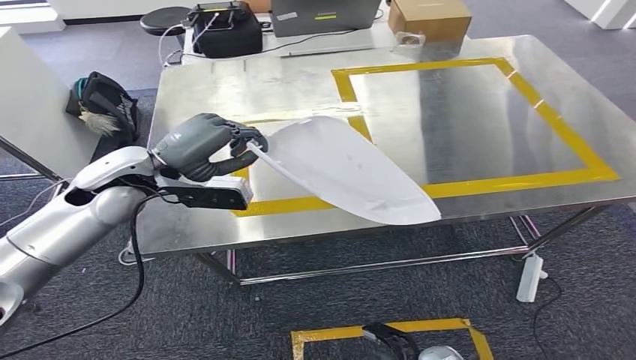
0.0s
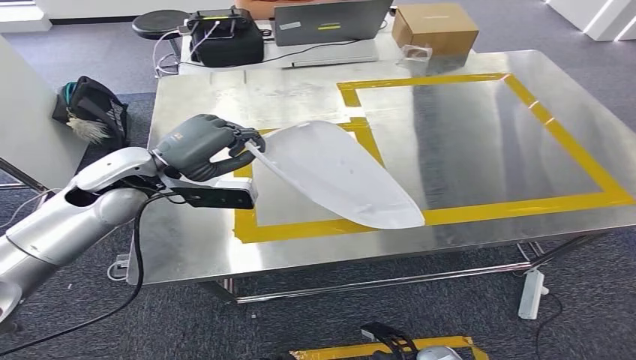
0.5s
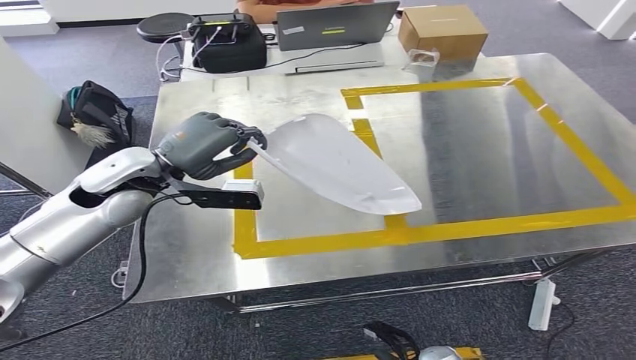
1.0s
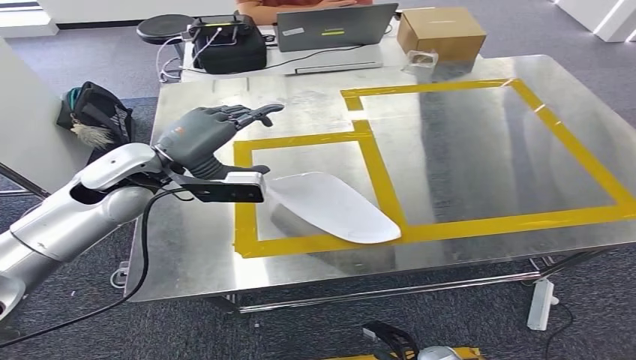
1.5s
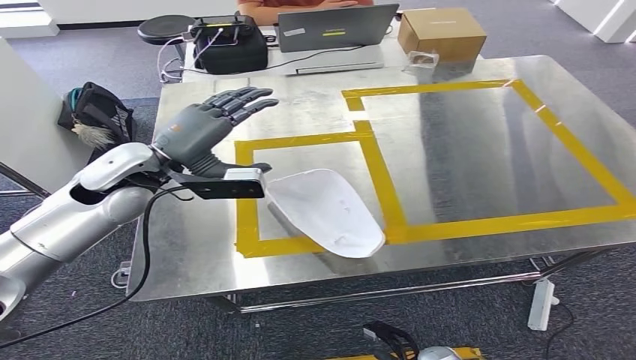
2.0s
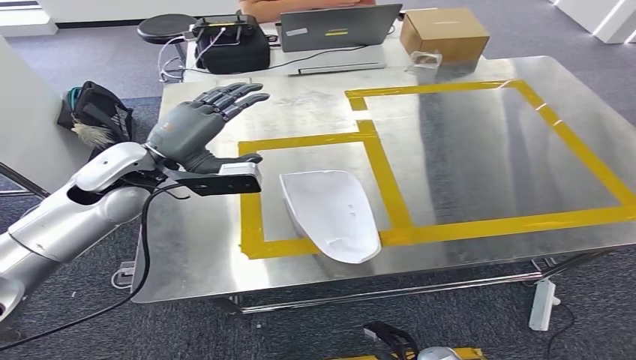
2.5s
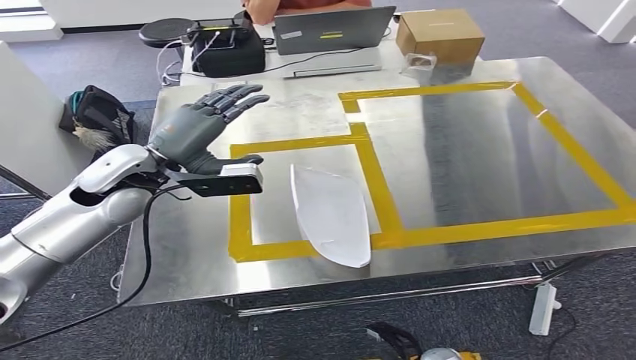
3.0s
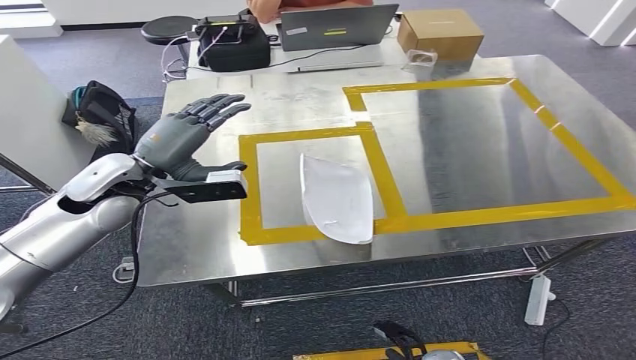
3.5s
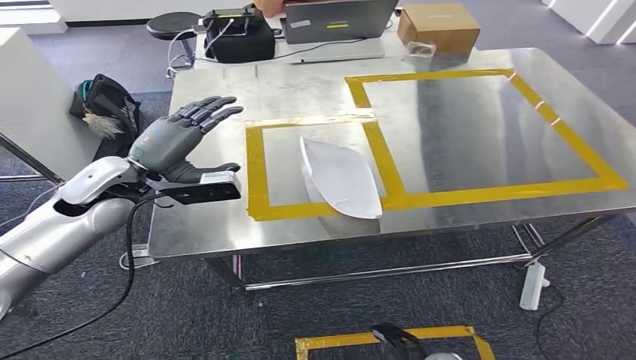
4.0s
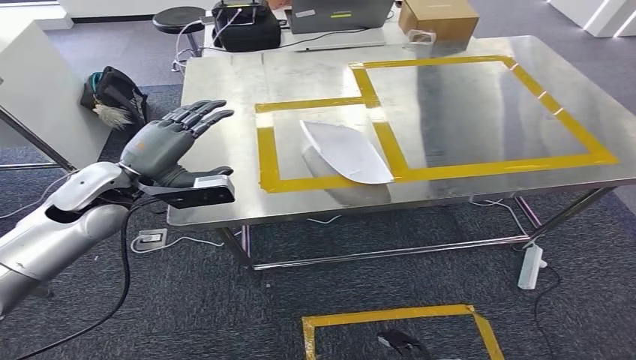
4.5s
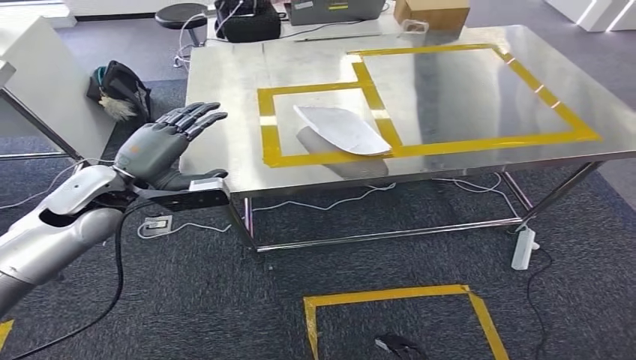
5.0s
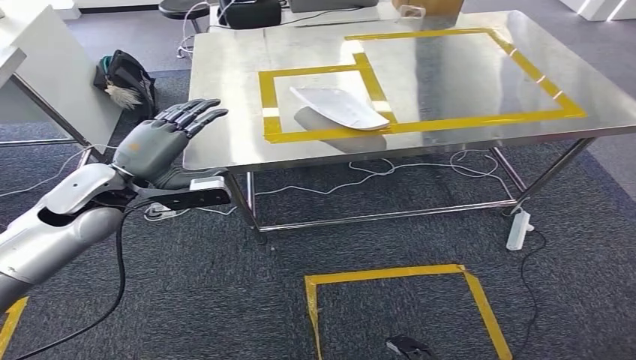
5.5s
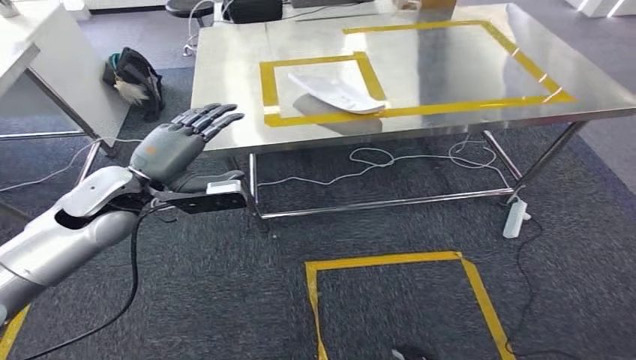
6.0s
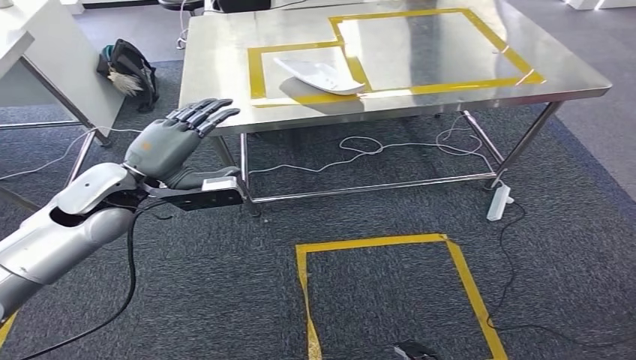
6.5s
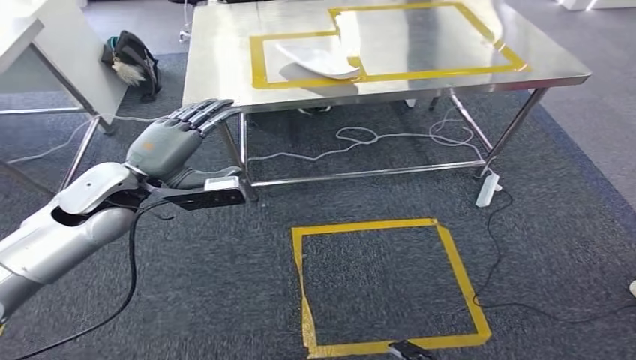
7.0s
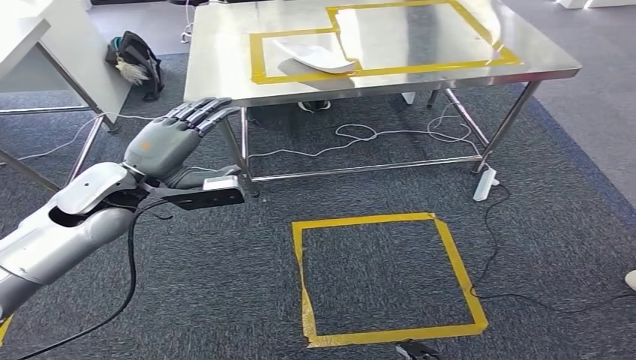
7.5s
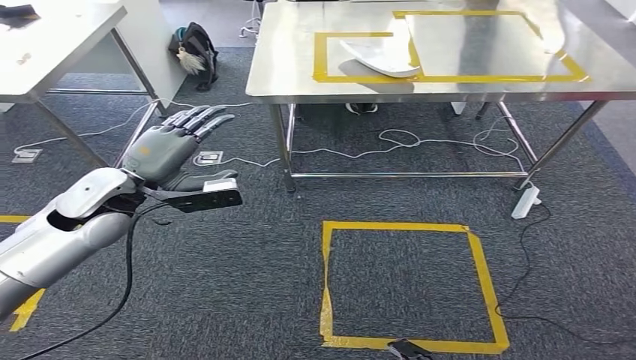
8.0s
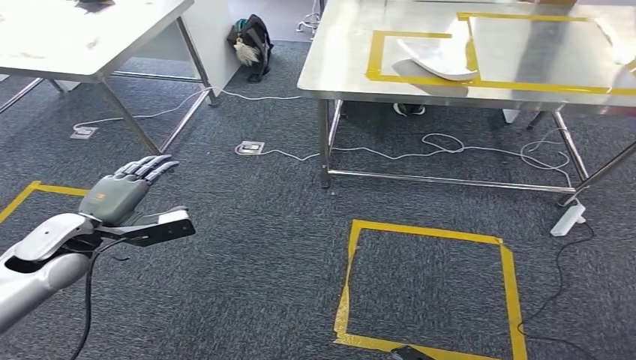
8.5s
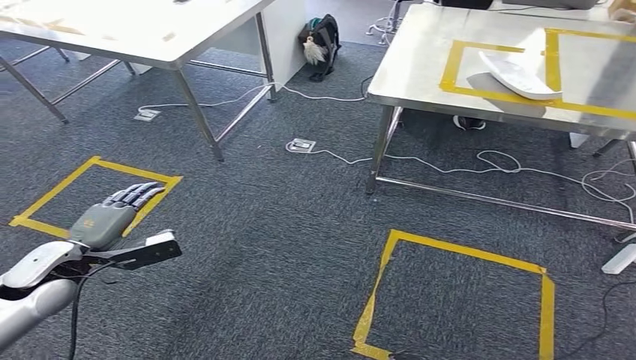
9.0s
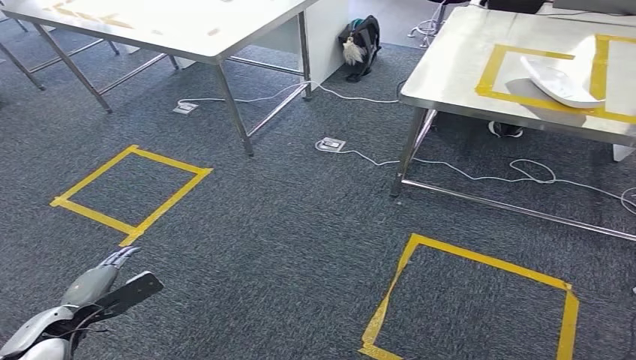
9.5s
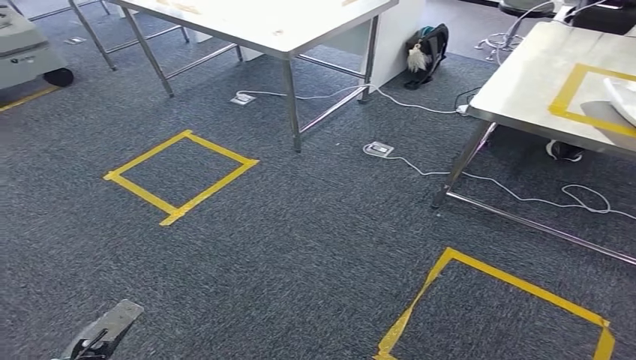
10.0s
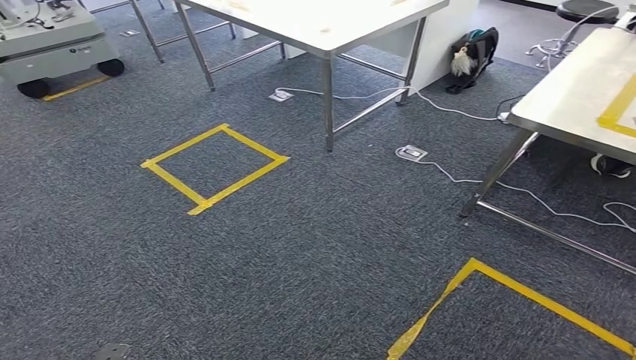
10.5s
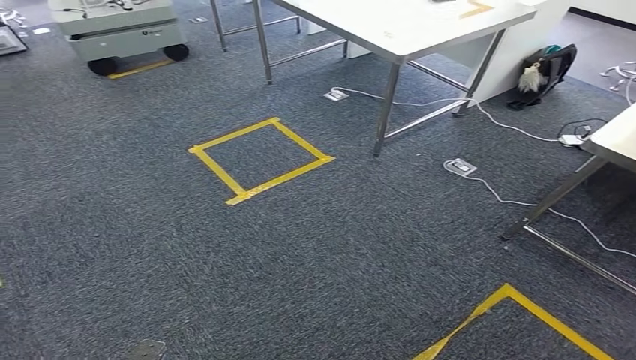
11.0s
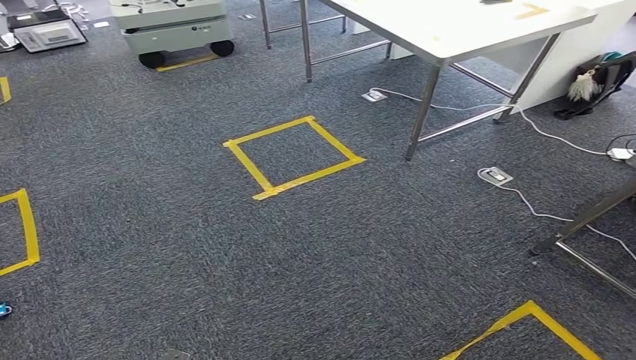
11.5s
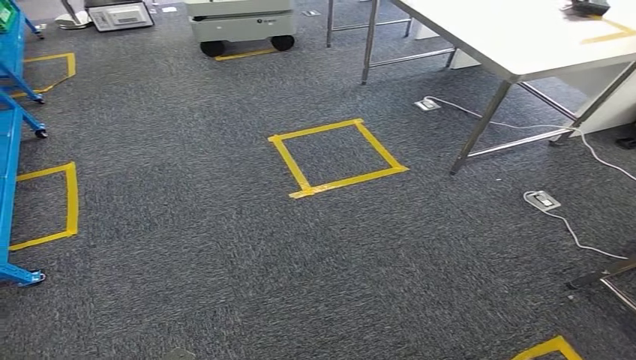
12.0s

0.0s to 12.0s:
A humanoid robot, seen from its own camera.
Step, 0.0s to 5.0s: Insert the small parts into the corresponding slots on the workbench.

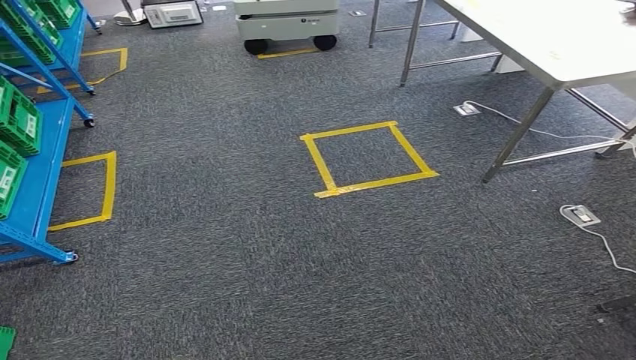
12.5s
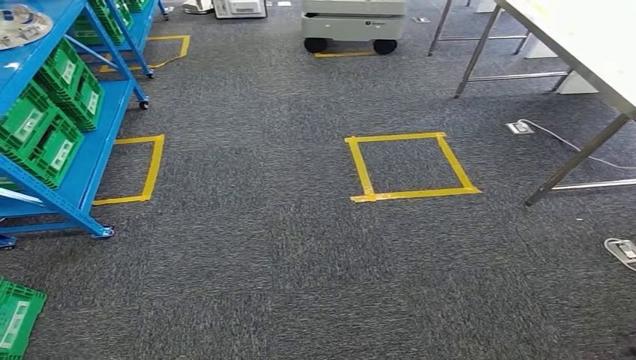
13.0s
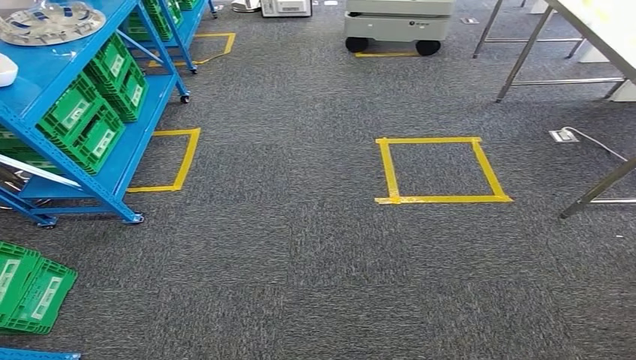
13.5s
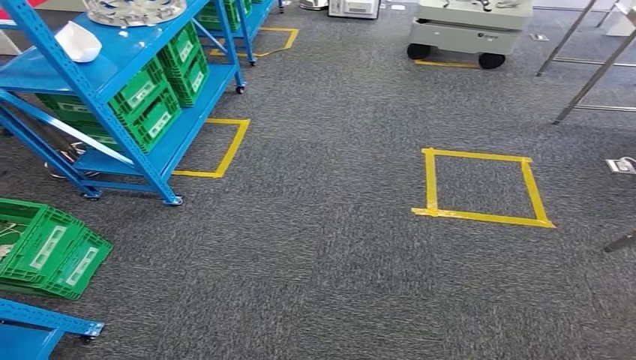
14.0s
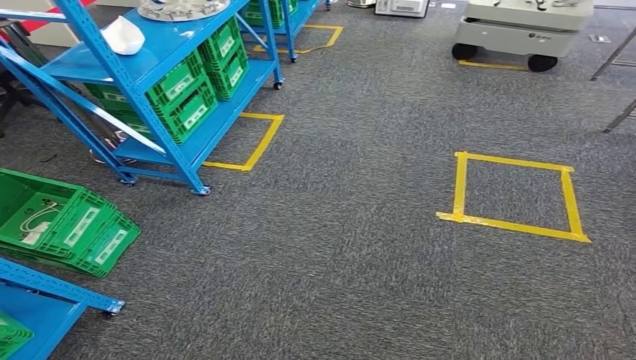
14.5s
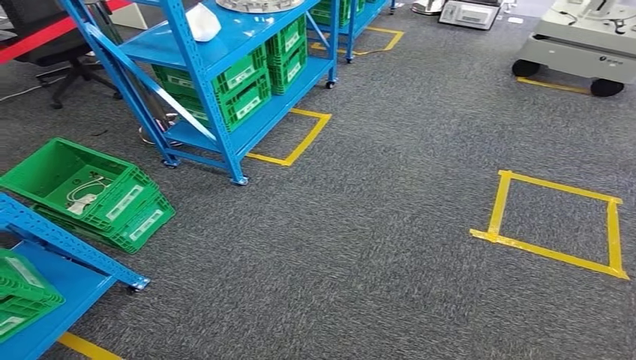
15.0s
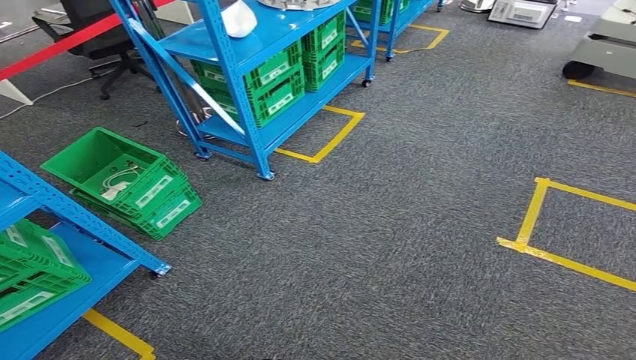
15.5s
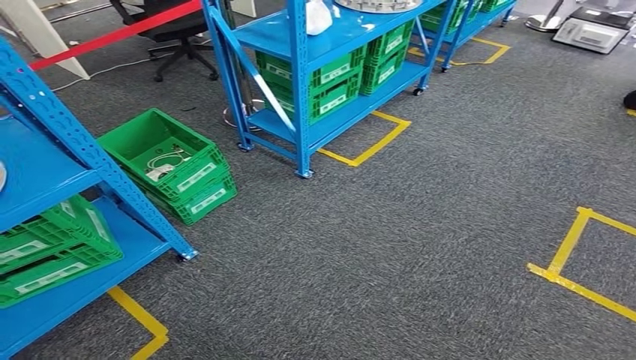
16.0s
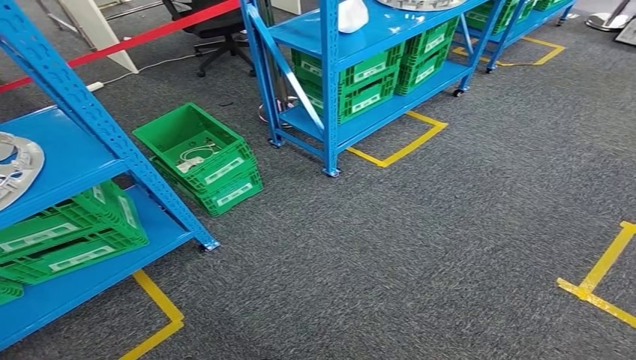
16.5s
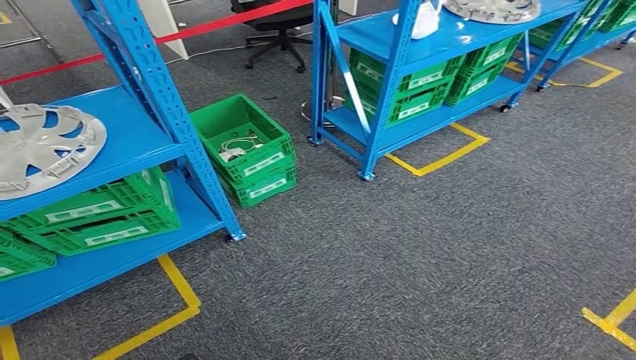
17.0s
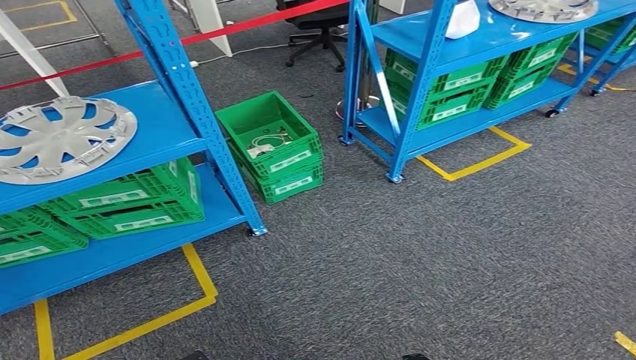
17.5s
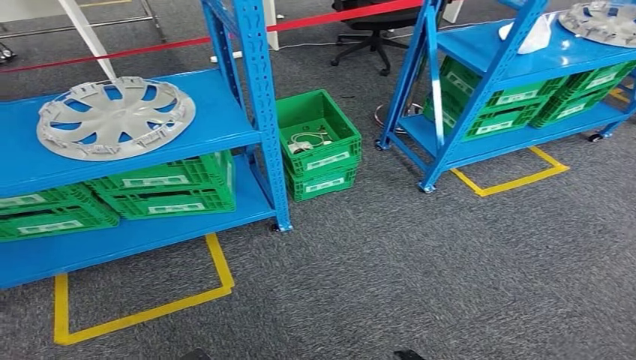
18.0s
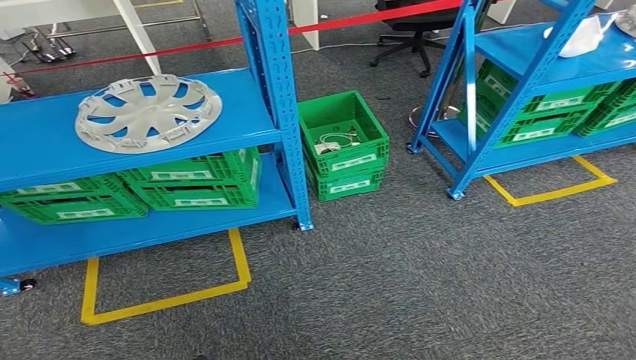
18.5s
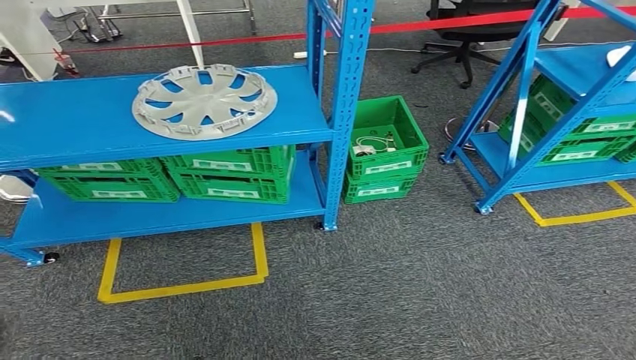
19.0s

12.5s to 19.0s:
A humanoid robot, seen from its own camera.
Step, 12.5s to 19.0s: Return to the initial position at the workbench.
